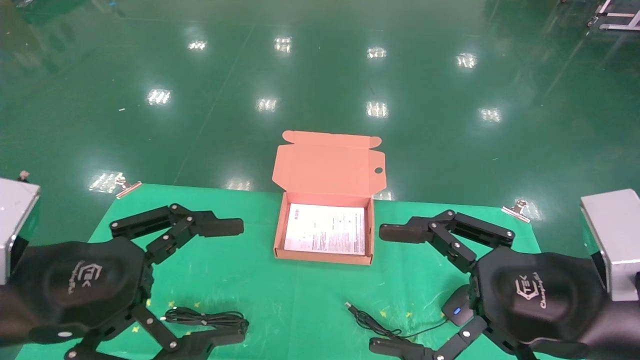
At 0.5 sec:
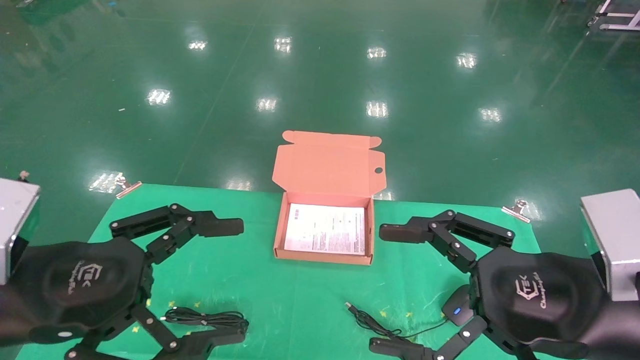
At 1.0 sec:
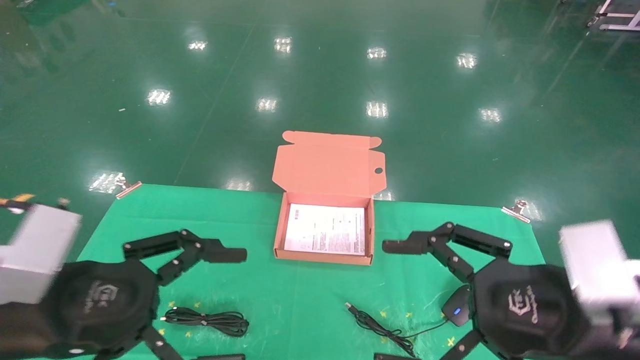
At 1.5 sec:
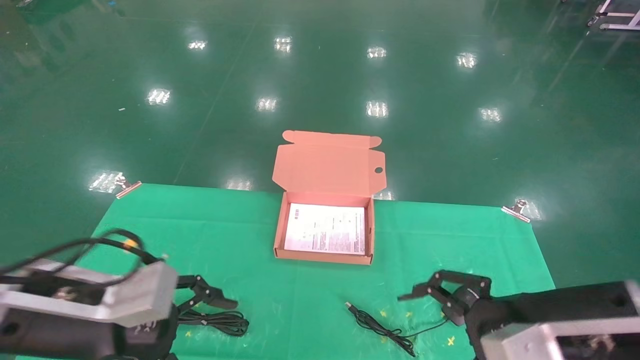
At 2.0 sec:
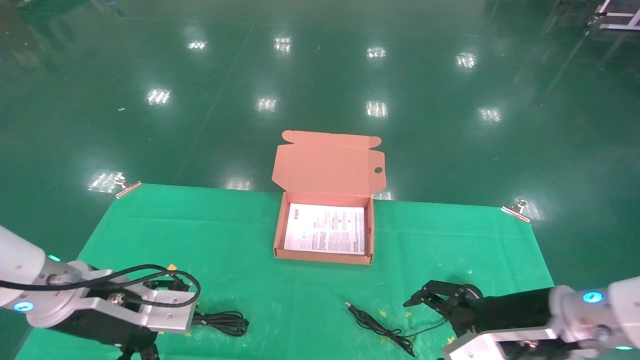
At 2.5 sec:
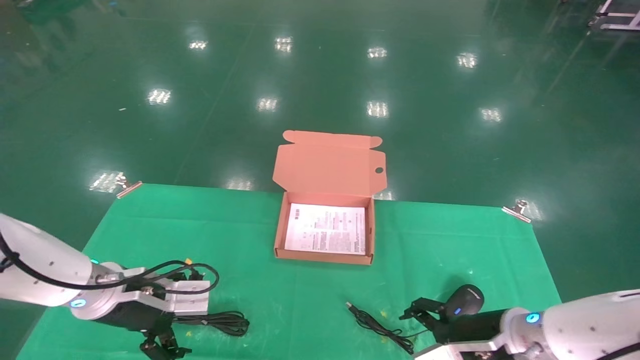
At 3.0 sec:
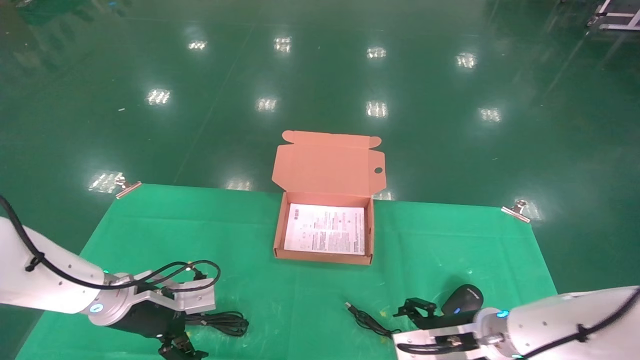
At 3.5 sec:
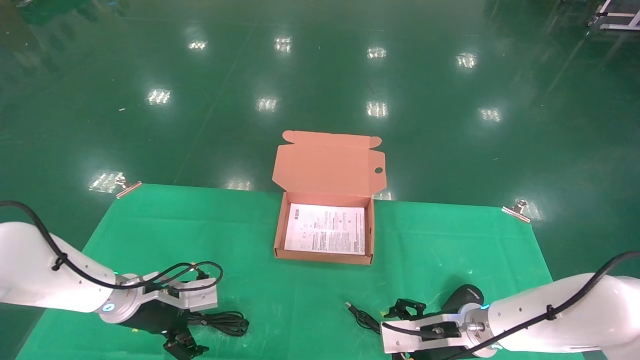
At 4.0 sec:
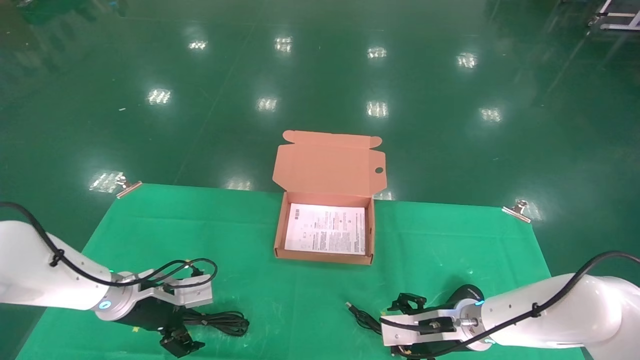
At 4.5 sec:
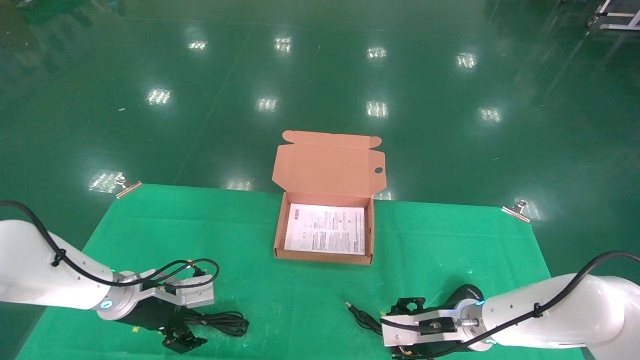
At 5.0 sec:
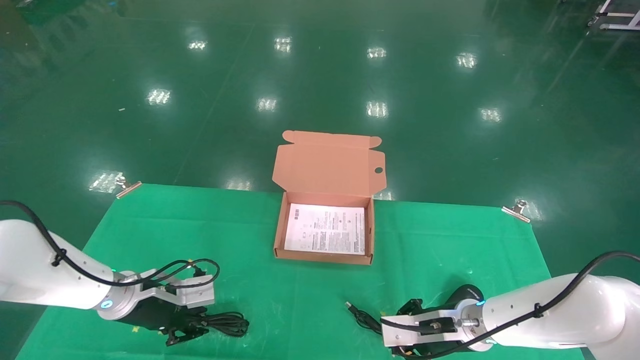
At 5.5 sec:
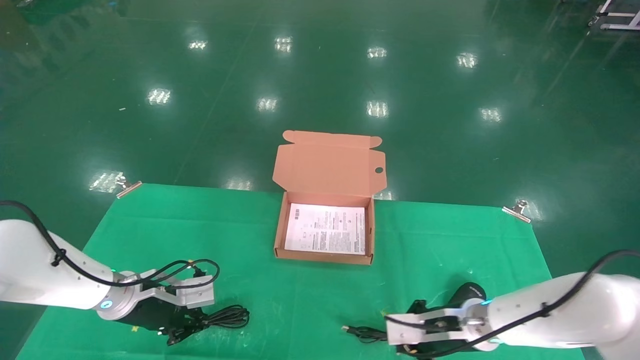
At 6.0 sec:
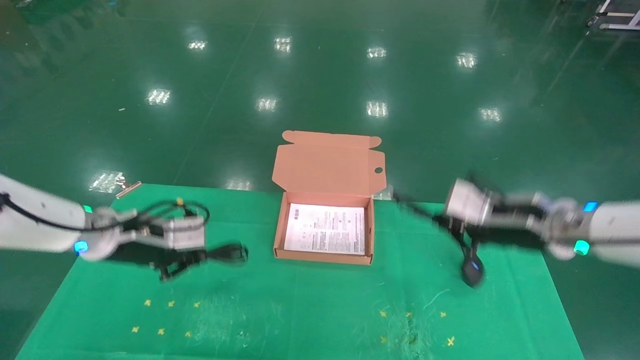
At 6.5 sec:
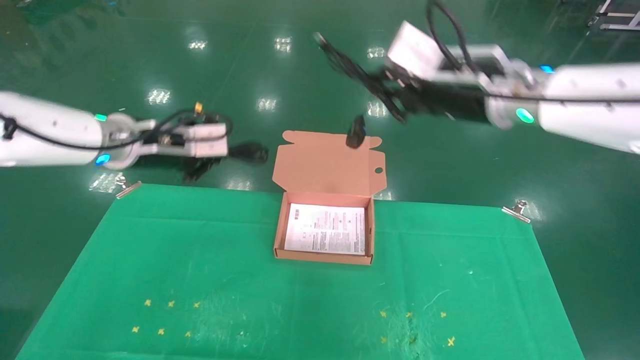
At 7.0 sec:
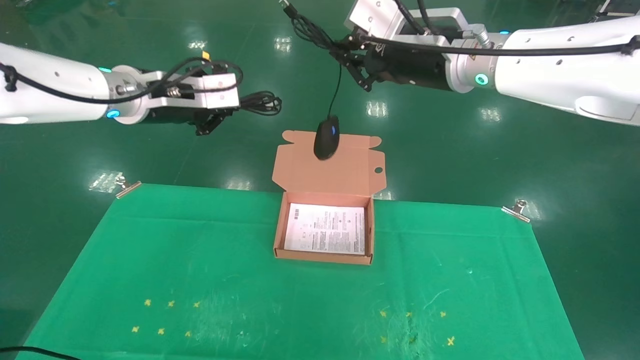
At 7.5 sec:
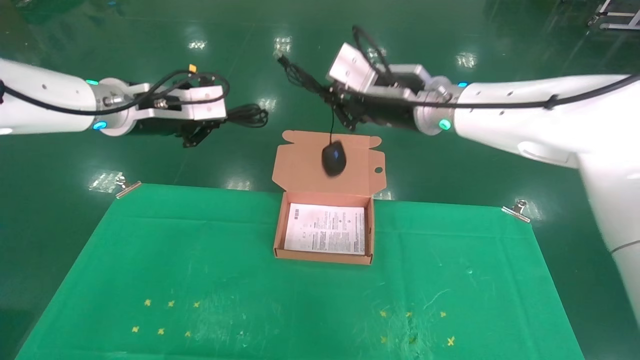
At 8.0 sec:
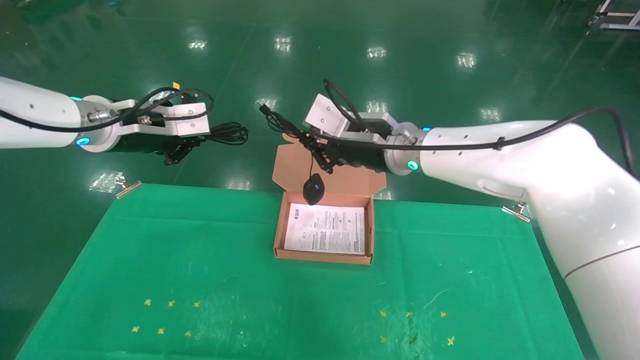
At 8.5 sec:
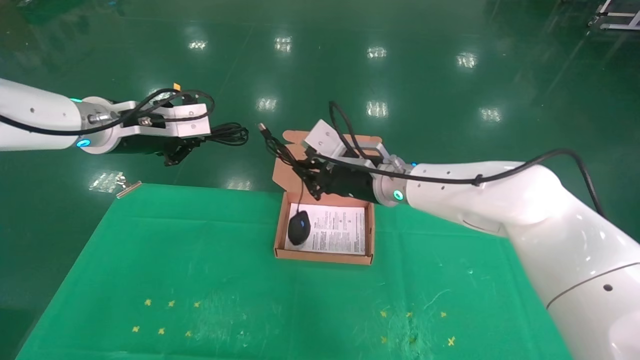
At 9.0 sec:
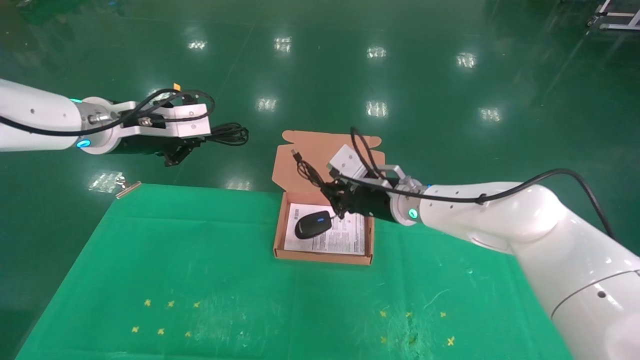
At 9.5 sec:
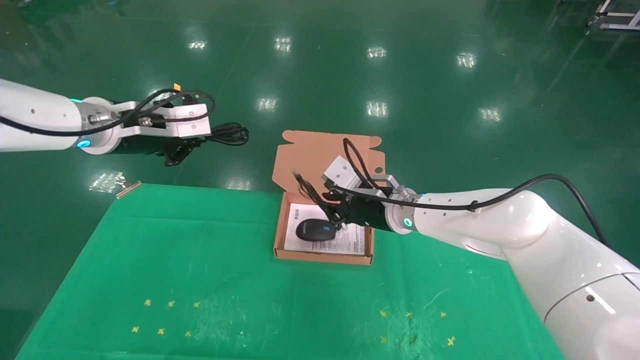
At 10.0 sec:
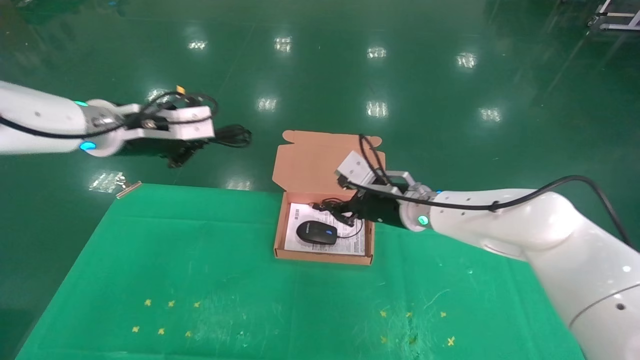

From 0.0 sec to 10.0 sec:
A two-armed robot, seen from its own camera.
Task of the whole recording: grasp data cable left put into box grasp mouse right put into box.
Step, from 1.5 sec to 6.5 sec: Grab and pick up both the mouse and power cord from the accessory packaging area at the same time.
From 0.0 sec to 2.0 sec: Both grippers move forward and downward, some 15 cm.
From 2.0 sec to 4.0 sec: The two grippers go roughly 15 cm forward and downward.
From 4.0 sec to 6.0 sec: The right gripper moves upward, some 20 cm, and closes up. Meanwhile the left gripper shifts about 10 cm upward, and closes its fingers.
From 6.0 sec to 8.0 sec: The left gripper travels upward by some 15 cm; the right gripper is displaced to the left and upward by some 20 cm.
From 8.0 sec to 10.0 sec: The right gripper shifts approximately 10 cm downward.

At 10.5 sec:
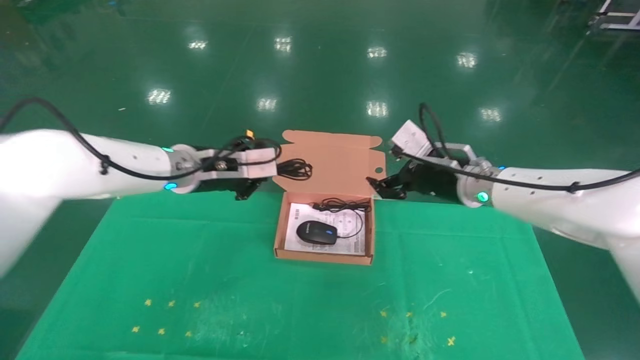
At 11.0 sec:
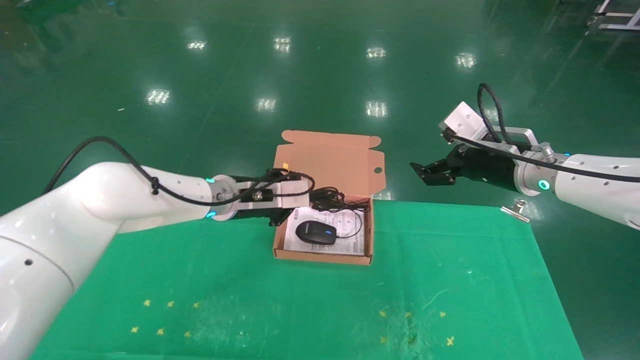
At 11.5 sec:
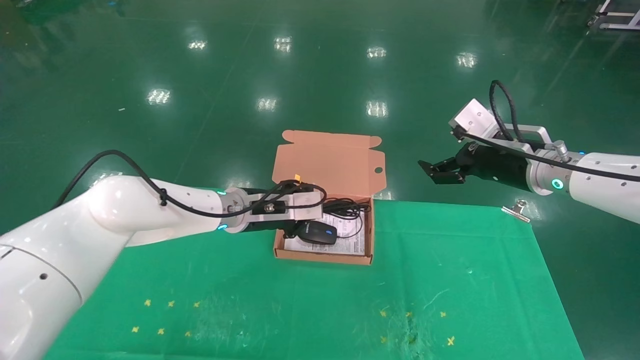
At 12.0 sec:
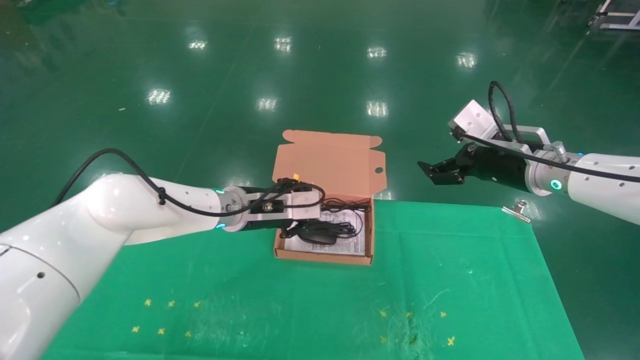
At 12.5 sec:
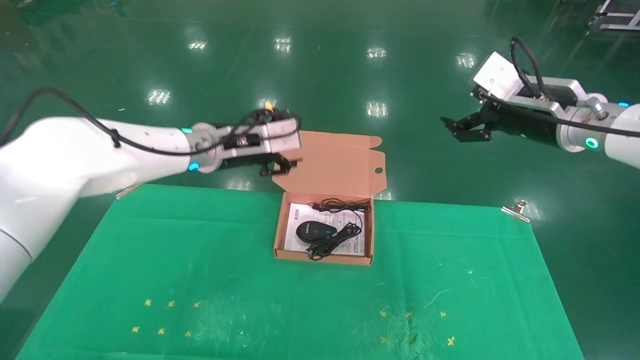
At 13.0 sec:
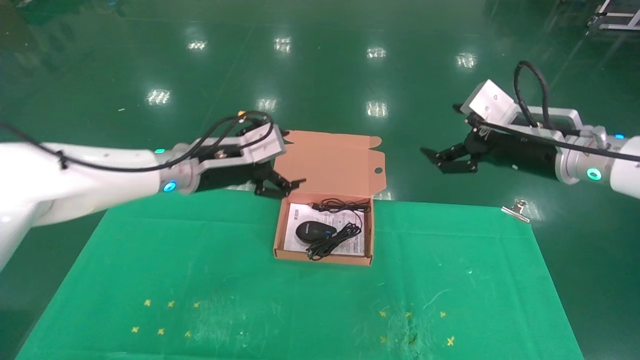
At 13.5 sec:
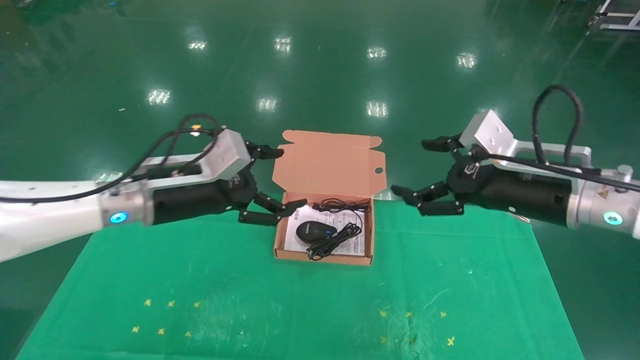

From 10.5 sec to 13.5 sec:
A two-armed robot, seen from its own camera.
Task of the whole recording: grasp data cable left put into box grasp mouse right put into box.
From 10.5 sec to 12.0 sec: The right gripper moves to the right, roughly 10 cm, while the left gripper moves to the right and downward, about 10 cm.
From 12.0 sec to 13.5 sec: The left gripper goes some 10 cm backward and to the left, and opens its fingers. Meanwhile the right gripper heads backward, covering roughly 10 cm.

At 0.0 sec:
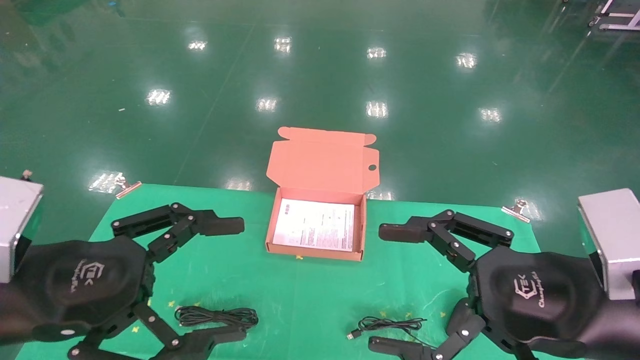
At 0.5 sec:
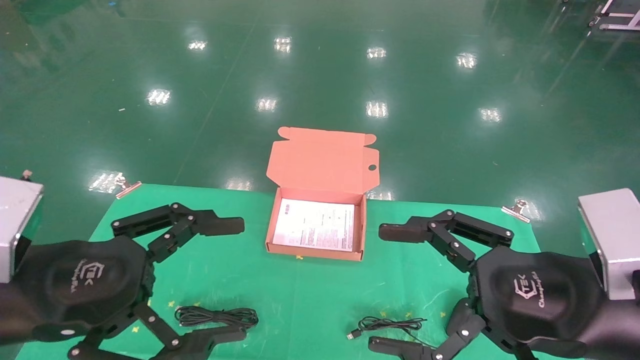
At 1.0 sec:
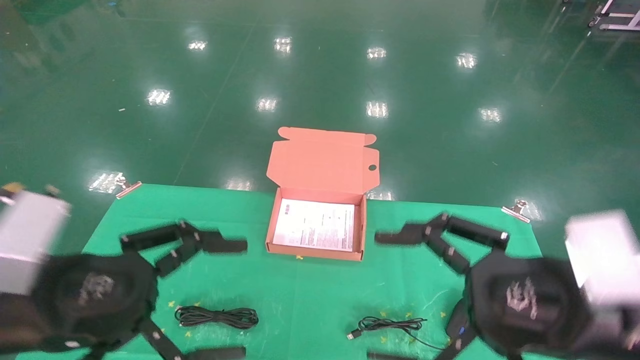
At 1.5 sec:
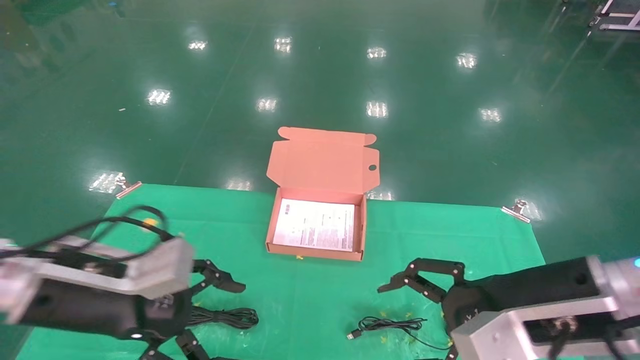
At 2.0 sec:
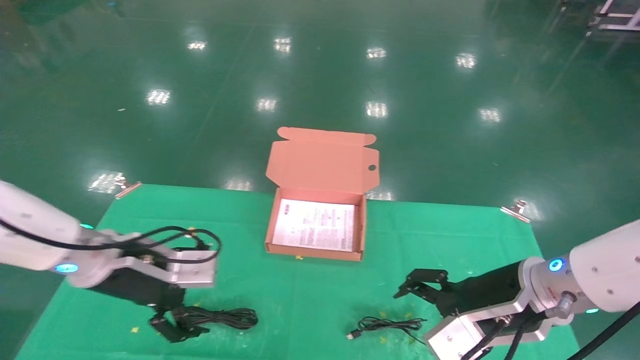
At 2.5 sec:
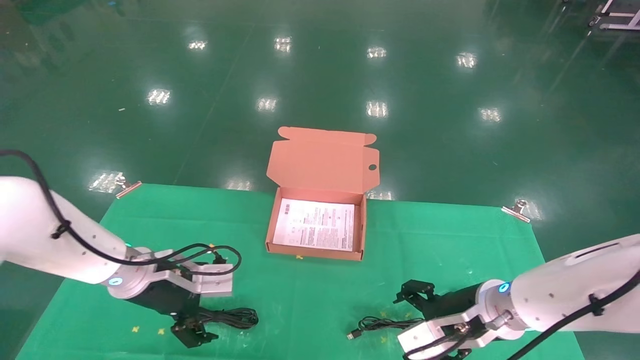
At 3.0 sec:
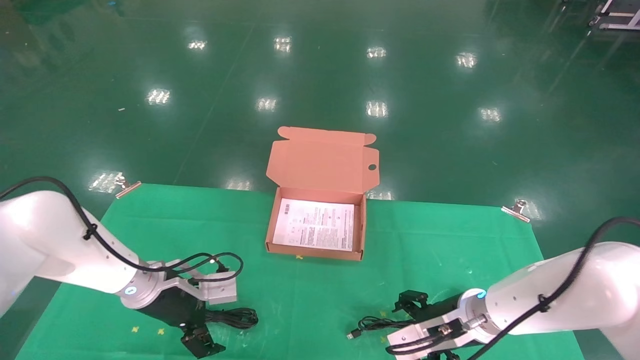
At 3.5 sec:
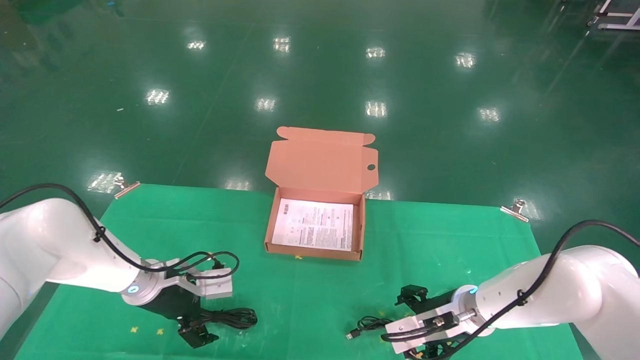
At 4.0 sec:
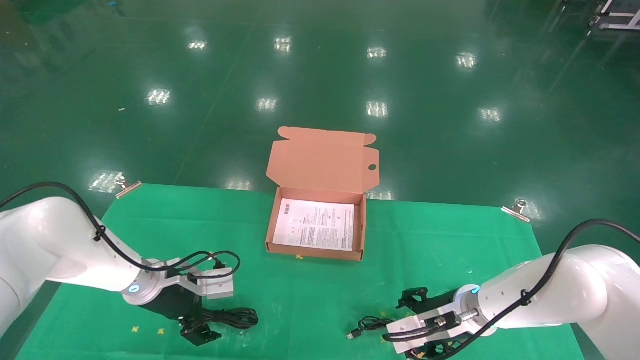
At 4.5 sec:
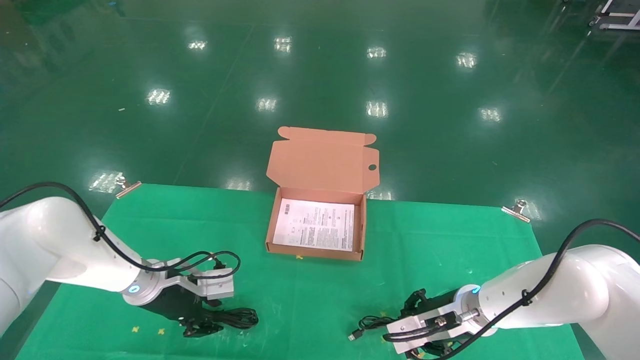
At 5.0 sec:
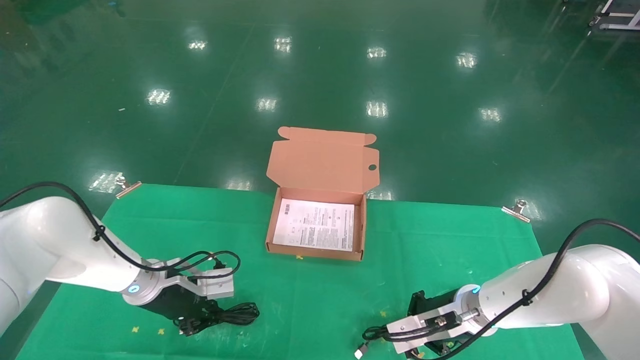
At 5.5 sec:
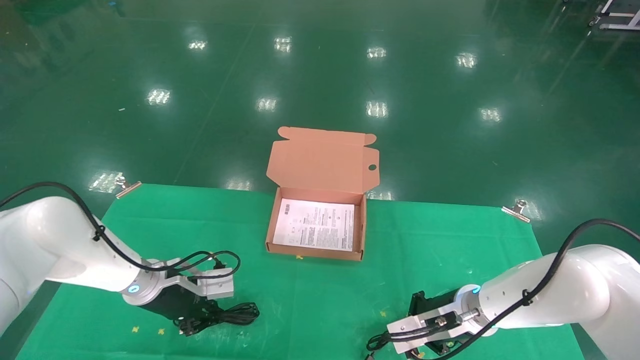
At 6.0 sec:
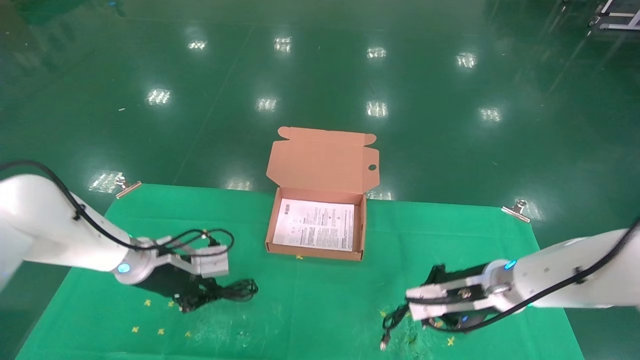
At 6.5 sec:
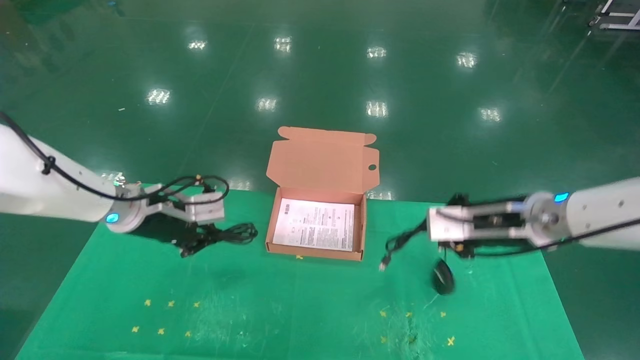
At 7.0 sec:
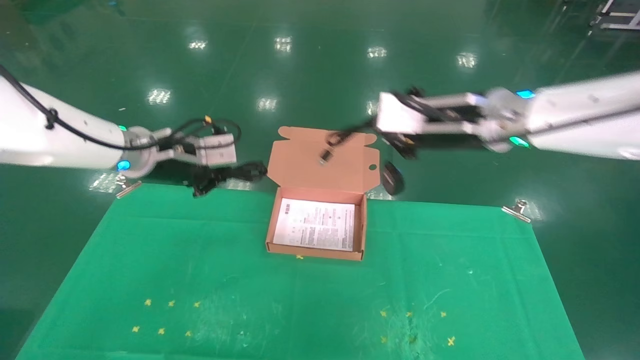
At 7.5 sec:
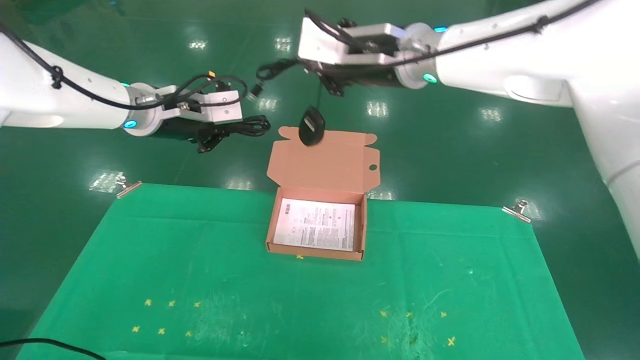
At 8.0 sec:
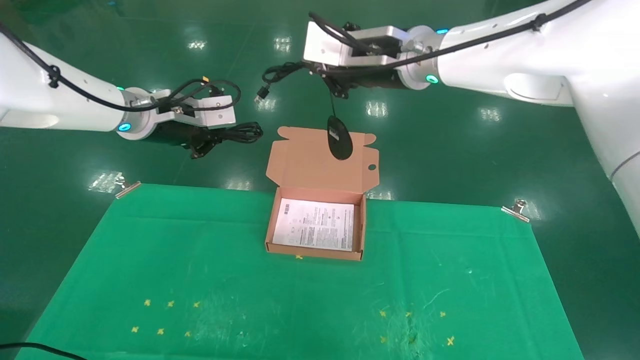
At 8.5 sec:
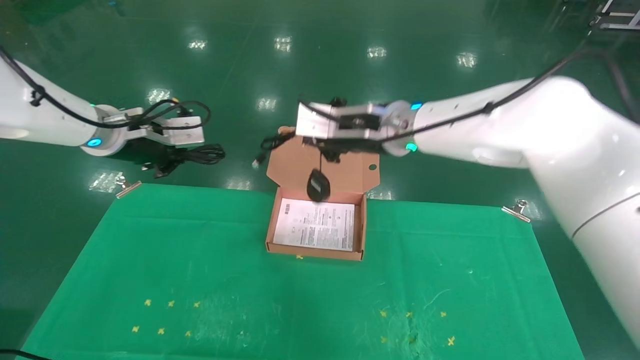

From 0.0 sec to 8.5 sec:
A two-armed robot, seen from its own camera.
Task of the whole recording: grasp data cable left put into box grasp mouse right put into box.
Step, from 1.5 sec to 5.5 sec: Grab and pick up both the mouse and power cord from the accessory packaging area at the same time.
From 0.0 sec to 2.0 sec: Both grippers travel together forward and downward, some 15 cm.
From 2.0 sec to 4.0 sec: The grippers both shift downward and forward by about 15 cm.
From 4.0 sec to 6.5 sec: Both grippers travel together upward, approximately 15 cm. The left gripper closes up; the right gripper closes its fingers.
From 6.5 sec to 8.5 sec: The right gripper heads to the left and upward, covering roughly 20 cm, while the left gripper is displaced upward by about 10 cm.
